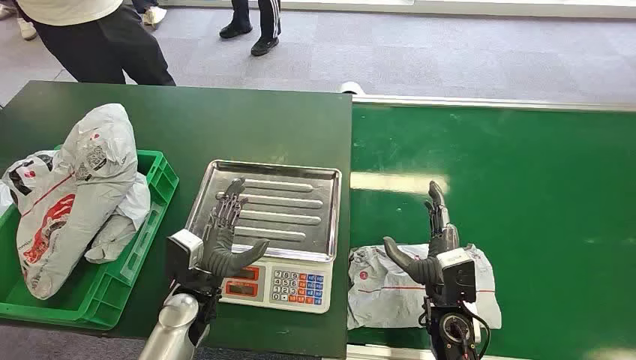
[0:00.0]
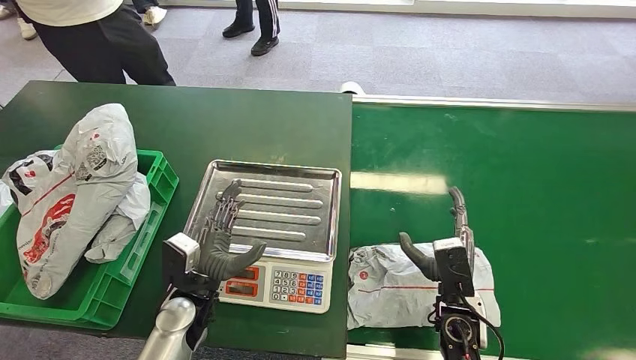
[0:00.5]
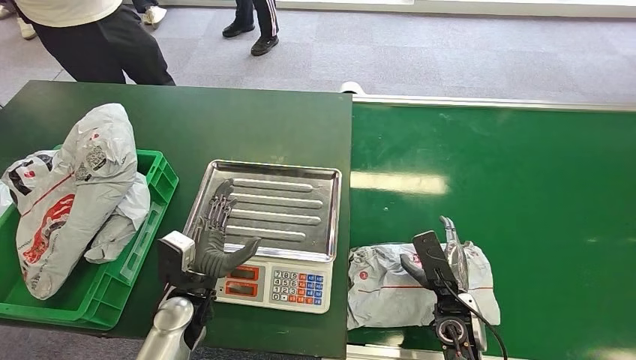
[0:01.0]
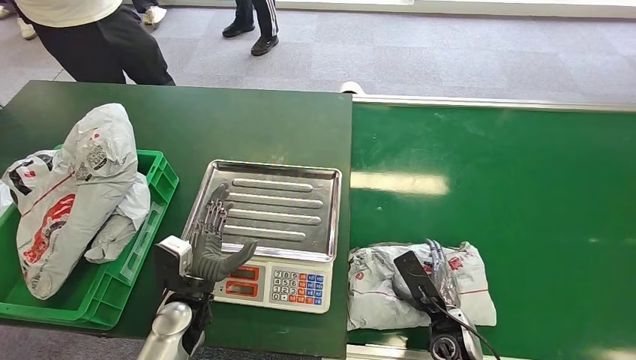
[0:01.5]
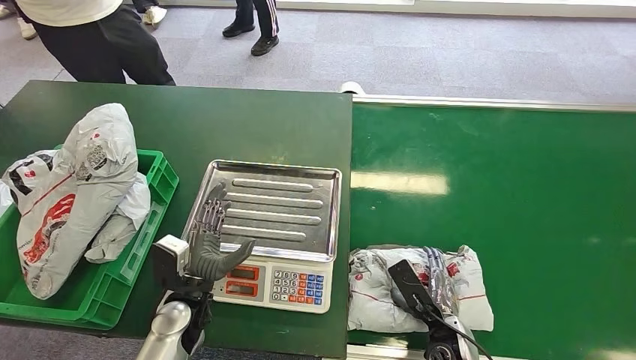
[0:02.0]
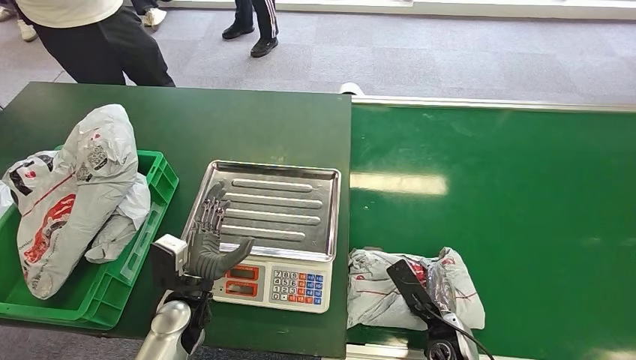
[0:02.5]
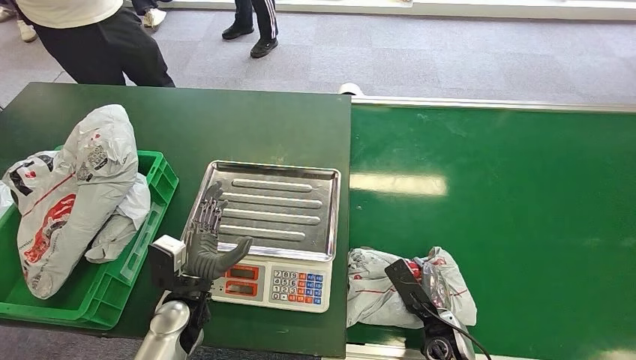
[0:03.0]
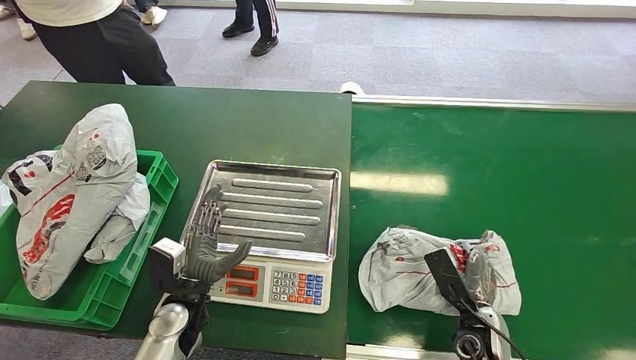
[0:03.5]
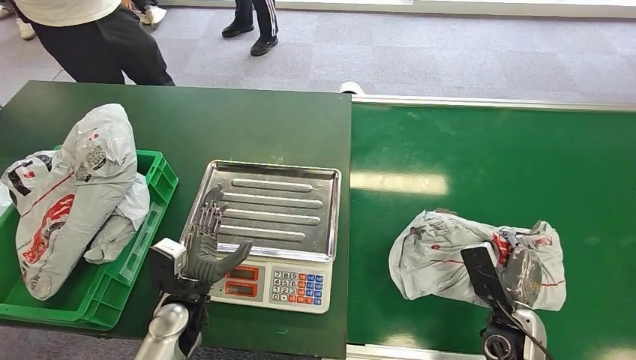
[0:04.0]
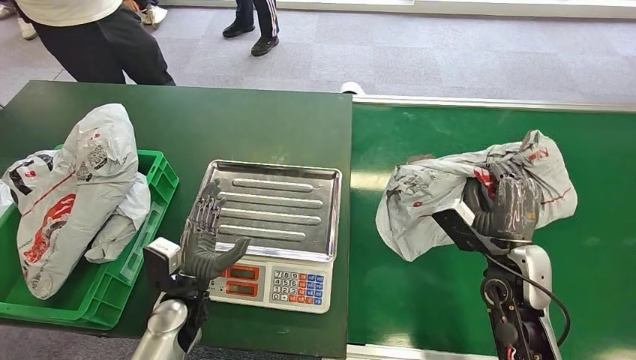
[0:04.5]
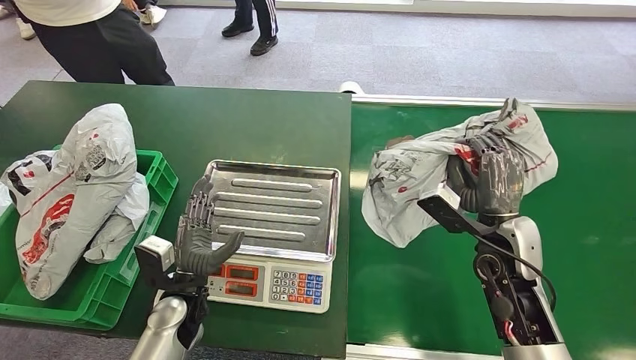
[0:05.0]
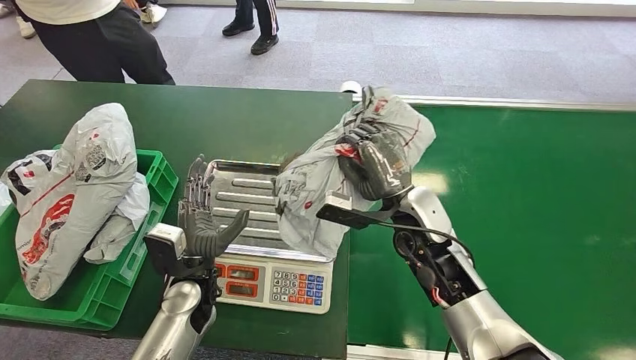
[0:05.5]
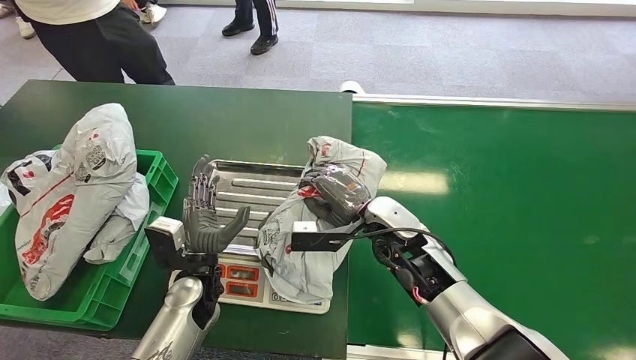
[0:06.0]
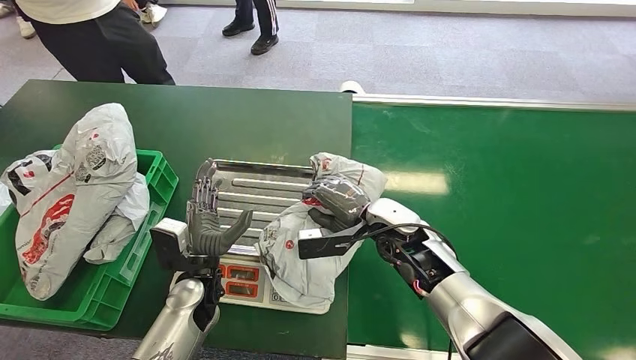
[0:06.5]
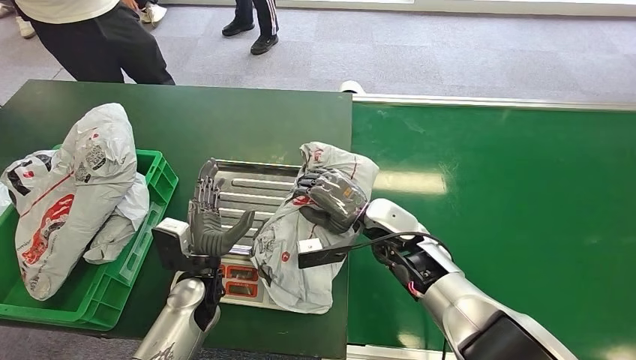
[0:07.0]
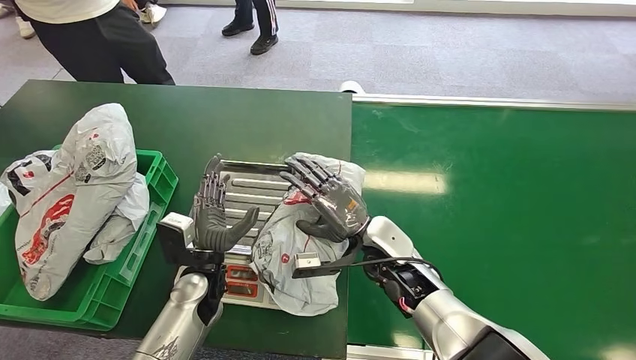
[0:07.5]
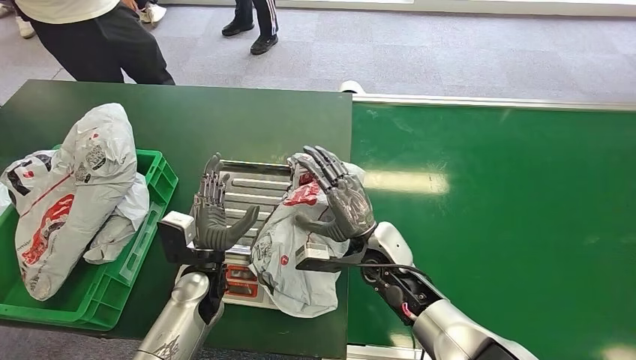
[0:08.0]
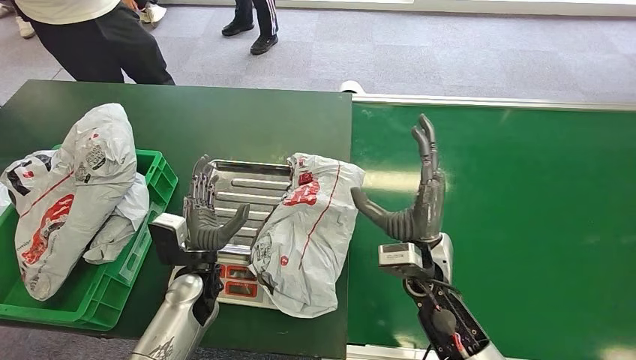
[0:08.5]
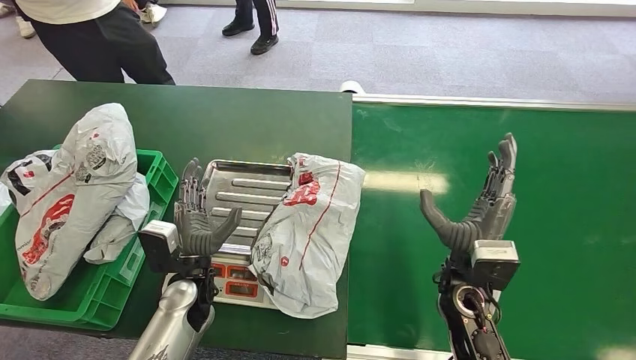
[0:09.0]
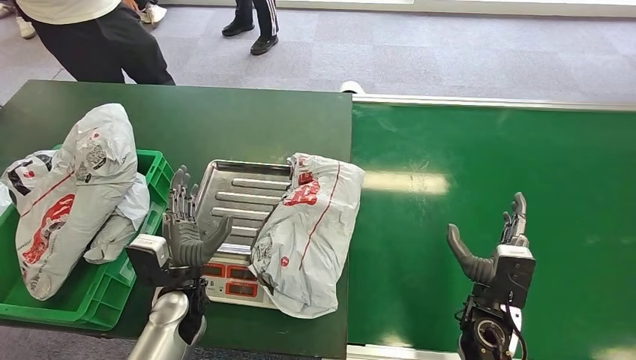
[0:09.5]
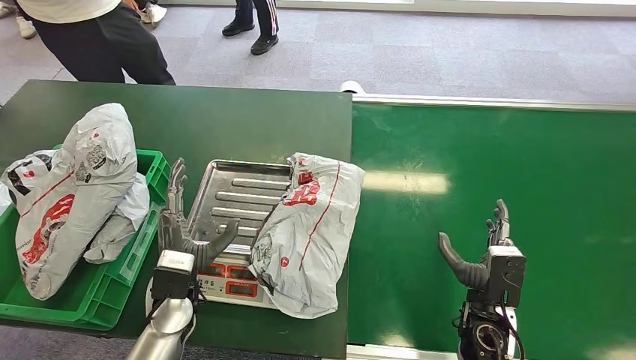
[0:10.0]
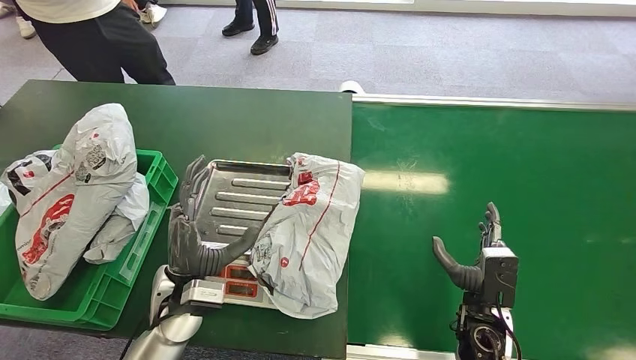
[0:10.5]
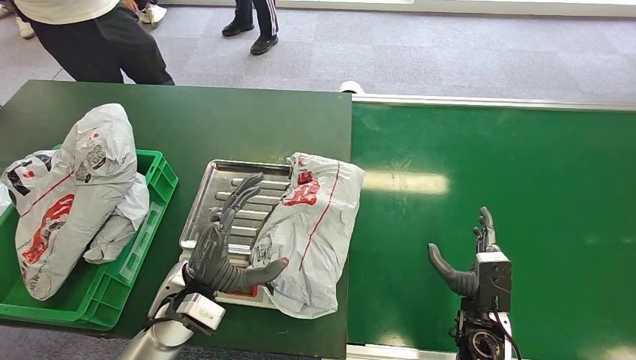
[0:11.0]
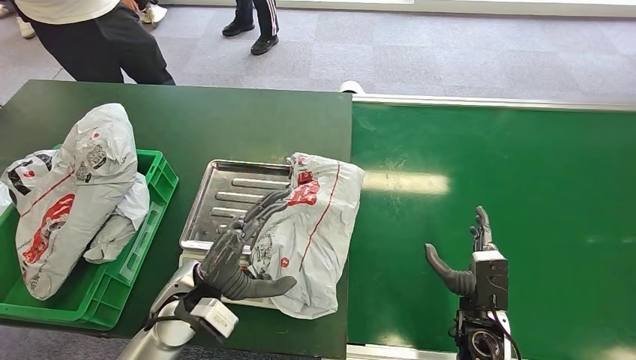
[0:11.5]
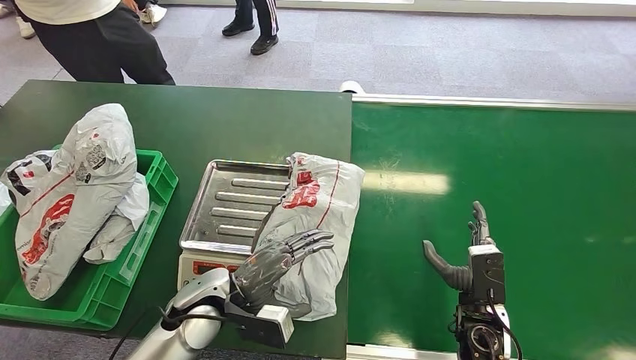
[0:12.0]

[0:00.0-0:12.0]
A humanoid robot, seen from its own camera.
Step, 0:00.0 to 0:04.0: Pick up the package from the conveyor belt.
Step, 0:04.5 to 0:08.5: Place the package onto the inbound machine.
0:02.0 to 0:04.0: The right hand is displaced to the right and upward by some 10 cm.
0:06.0 to 0:08.0: The right hand changes place by some 5 cm.
0:08.0 to 0:10.0: The left hand ends up about 5 cm from where it was. Meanwhile the right hand goes some 15 cm to the right and backward.

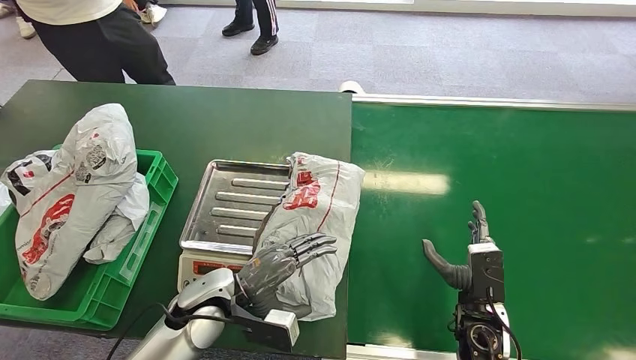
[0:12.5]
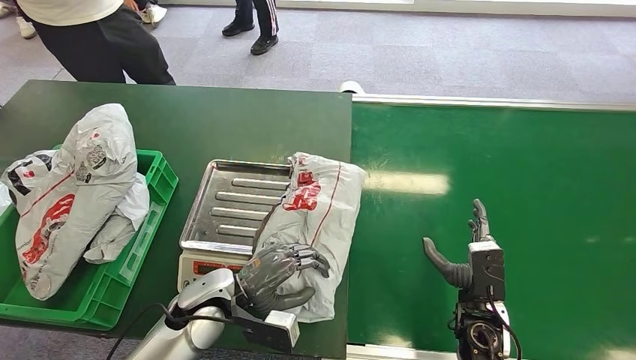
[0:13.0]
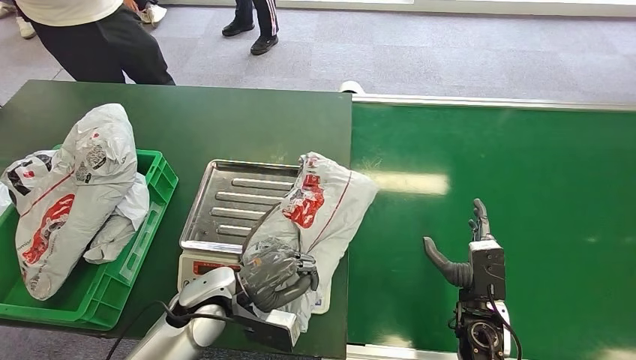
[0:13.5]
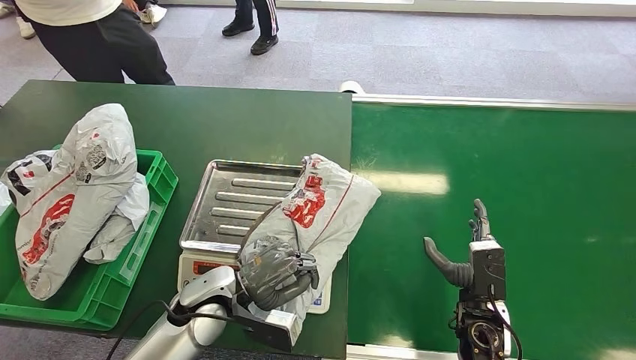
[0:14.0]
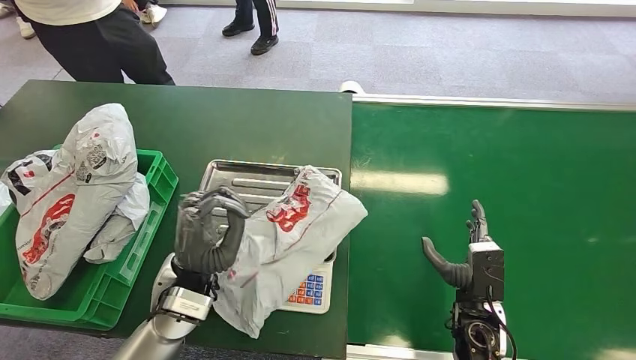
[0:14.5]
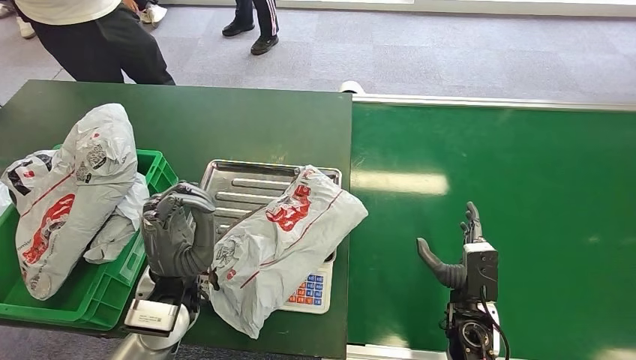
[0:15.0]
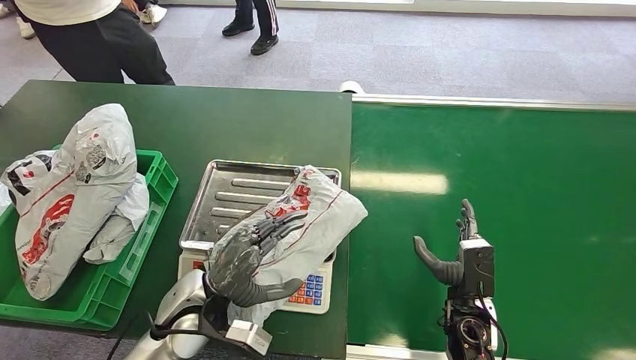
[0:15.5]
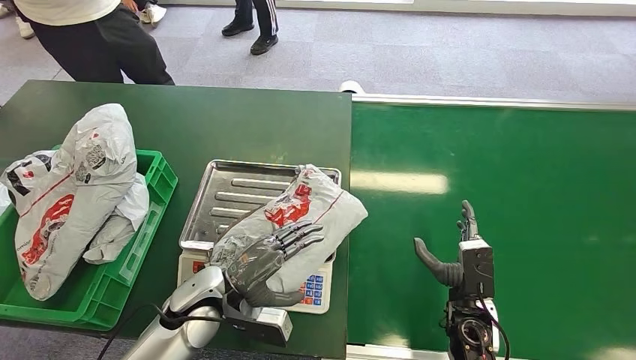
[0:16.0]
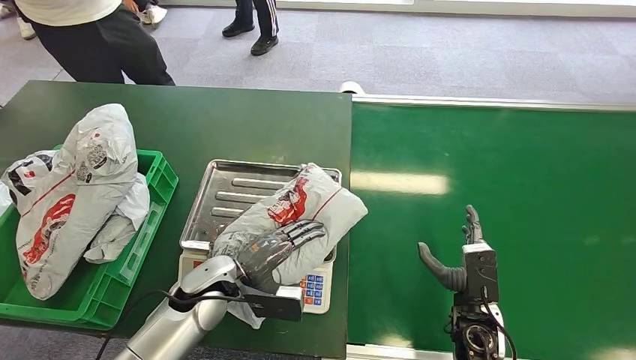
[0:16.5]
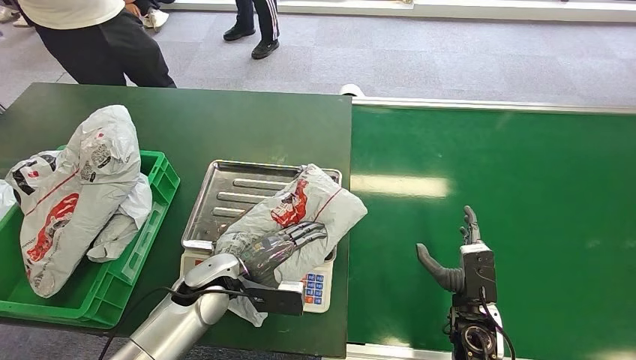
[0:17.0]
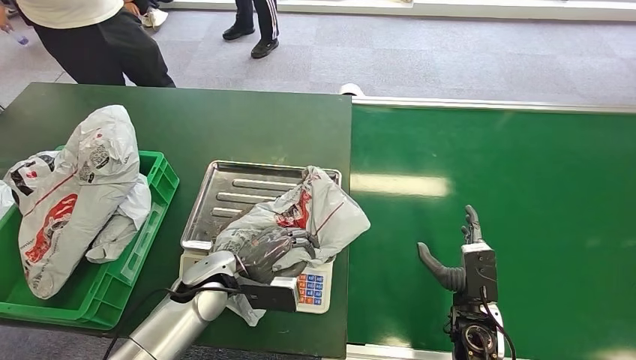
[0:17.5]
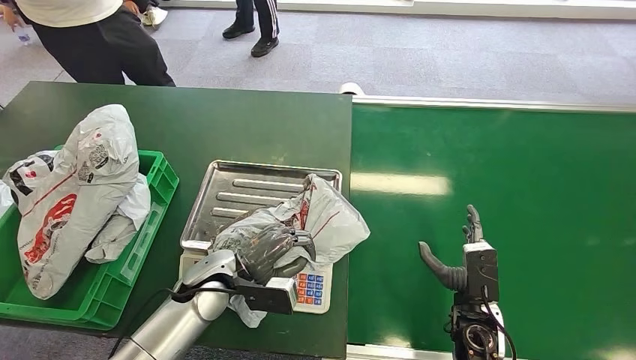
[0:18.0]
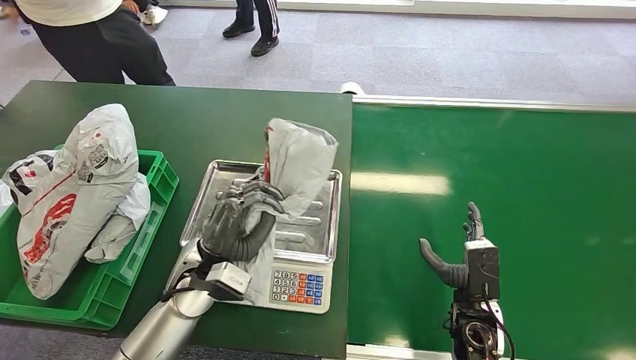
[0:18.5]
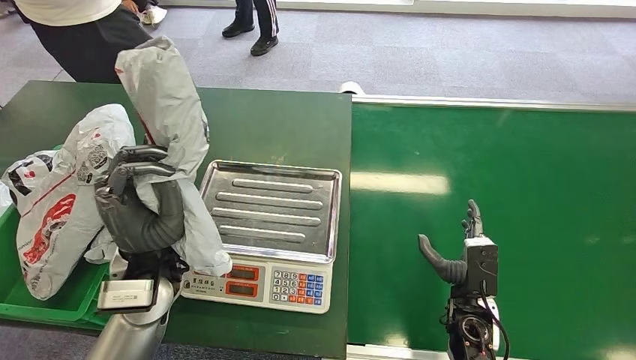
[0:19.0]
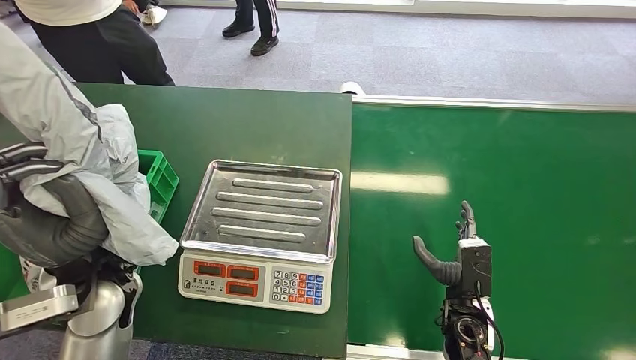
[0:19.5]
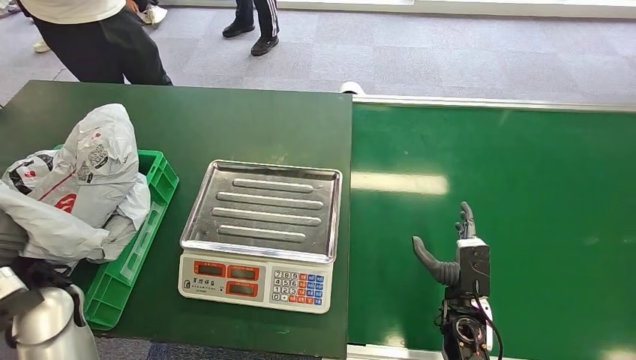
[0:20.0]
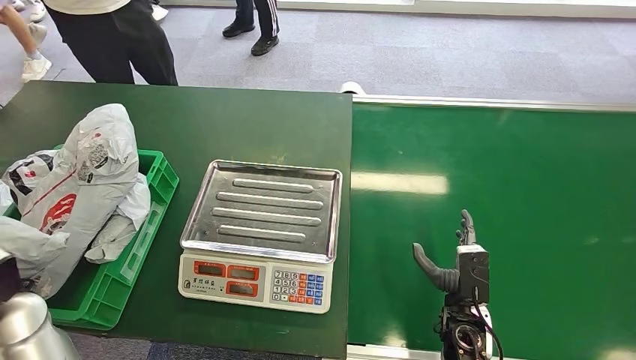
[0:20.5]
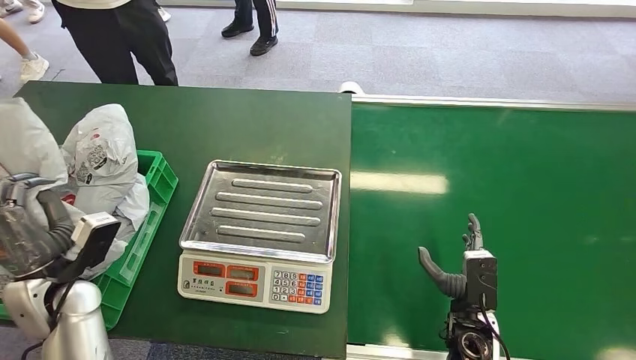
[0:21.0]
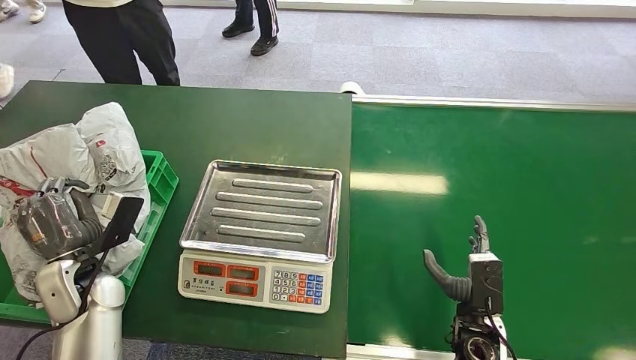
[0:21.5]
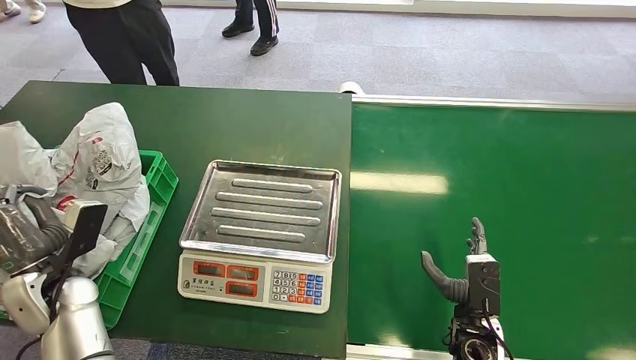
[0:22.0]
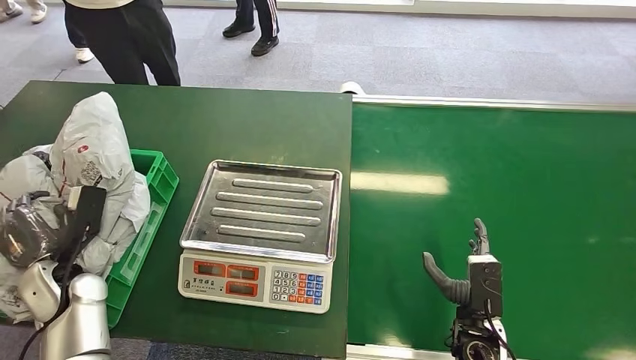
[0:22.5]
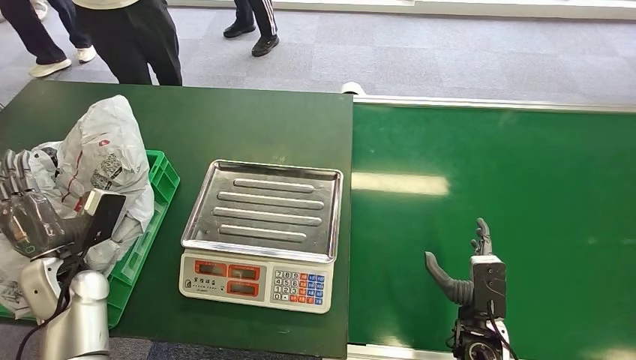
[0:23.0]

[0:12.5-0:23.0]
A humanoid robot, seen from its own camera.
Step, 0:12.5 to 0:19.0: Pick up the package from the inbound machine.
Step, 0:19.5 to 0:23.0: Place the package into the parcel locker.
0:12.5 to 0:14.5: The left hand travels upward by roughly 5 cm.
0:14.5 to 0:16.5: The left hand goes roughly 5 cm downward.
0:16.5 to 0:19.0: The left hand moves upward, about 10 cm.
